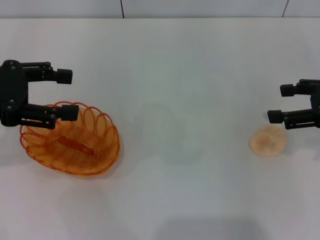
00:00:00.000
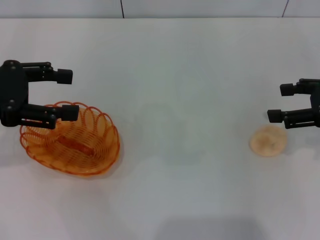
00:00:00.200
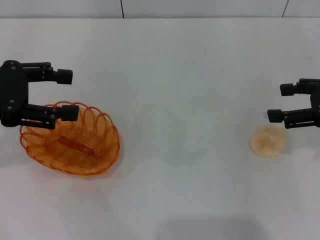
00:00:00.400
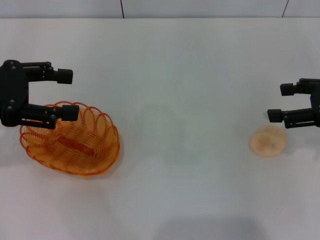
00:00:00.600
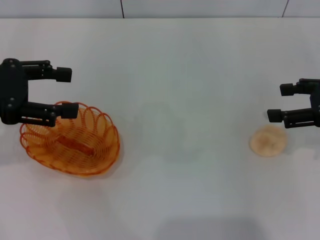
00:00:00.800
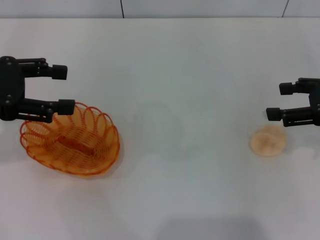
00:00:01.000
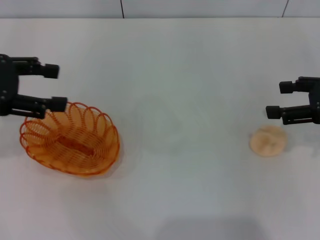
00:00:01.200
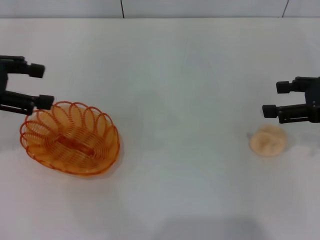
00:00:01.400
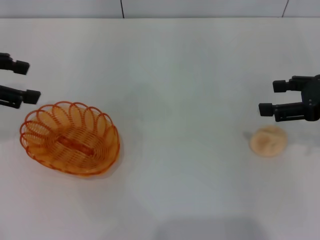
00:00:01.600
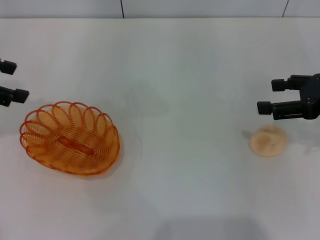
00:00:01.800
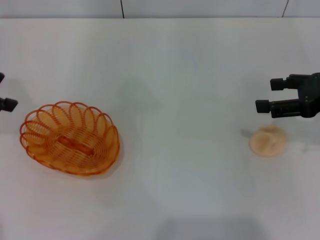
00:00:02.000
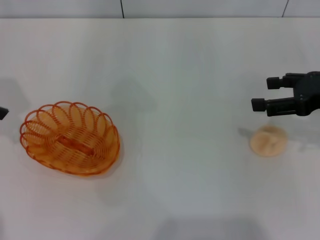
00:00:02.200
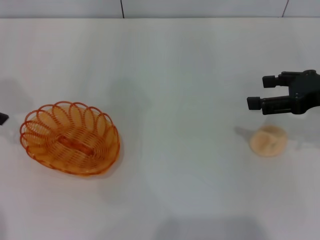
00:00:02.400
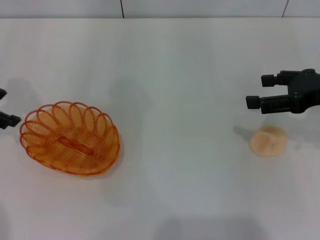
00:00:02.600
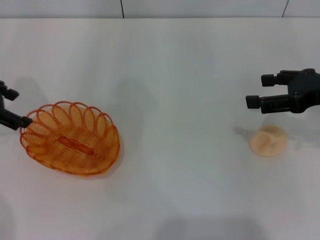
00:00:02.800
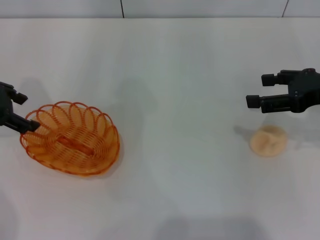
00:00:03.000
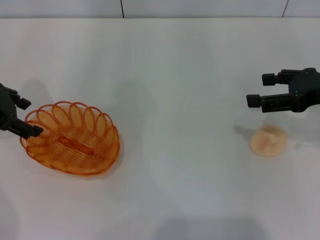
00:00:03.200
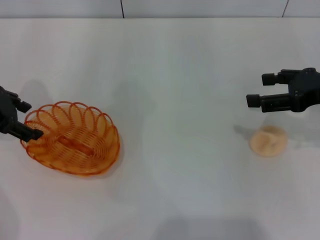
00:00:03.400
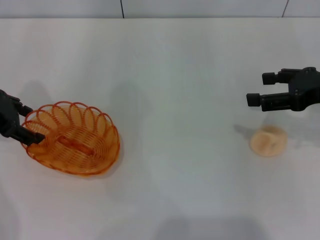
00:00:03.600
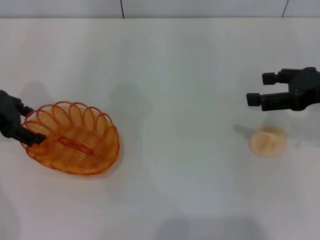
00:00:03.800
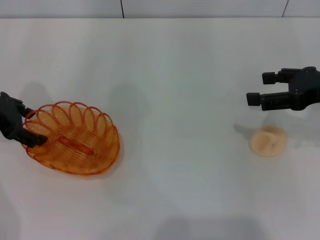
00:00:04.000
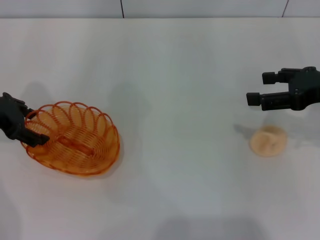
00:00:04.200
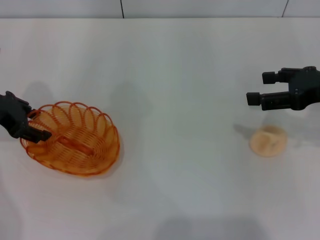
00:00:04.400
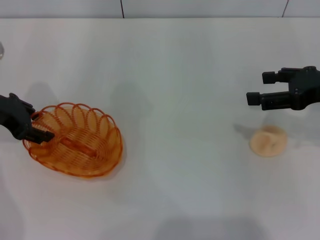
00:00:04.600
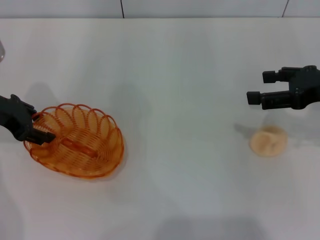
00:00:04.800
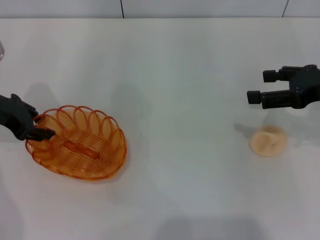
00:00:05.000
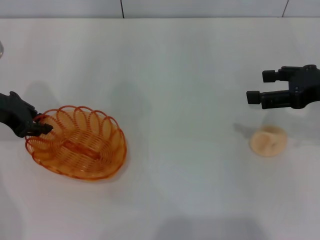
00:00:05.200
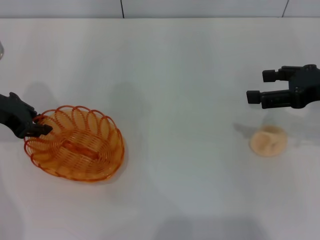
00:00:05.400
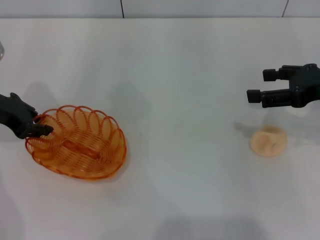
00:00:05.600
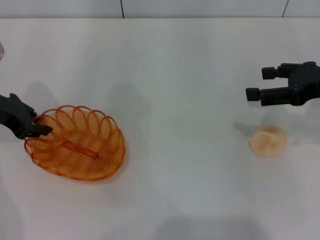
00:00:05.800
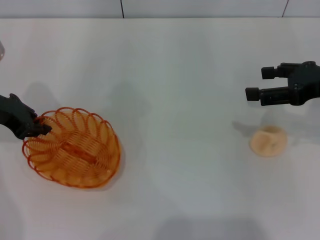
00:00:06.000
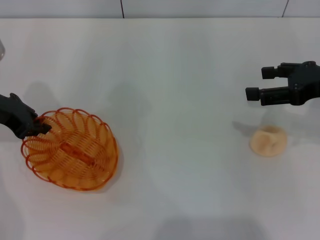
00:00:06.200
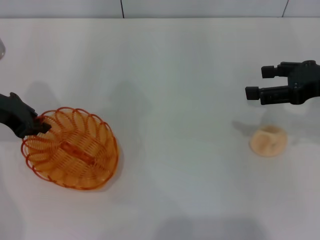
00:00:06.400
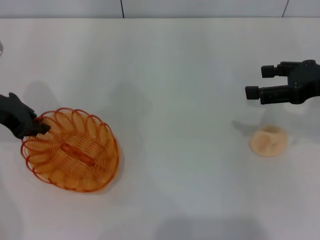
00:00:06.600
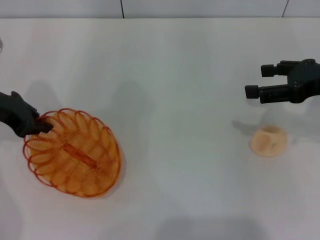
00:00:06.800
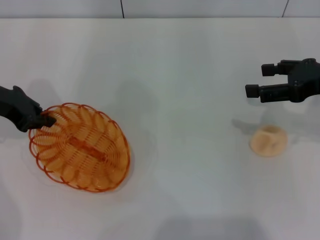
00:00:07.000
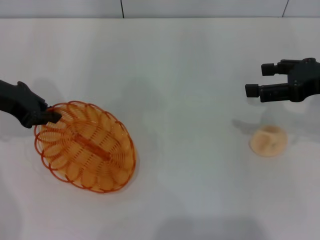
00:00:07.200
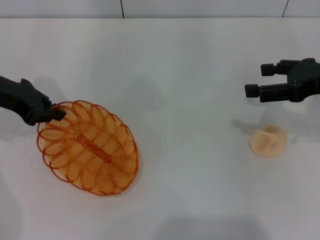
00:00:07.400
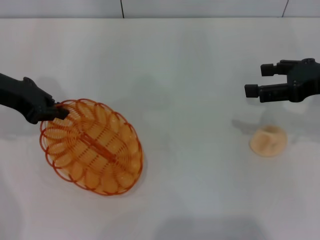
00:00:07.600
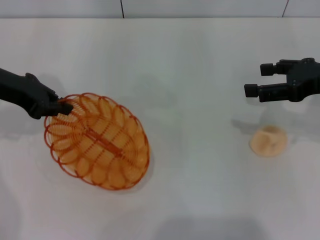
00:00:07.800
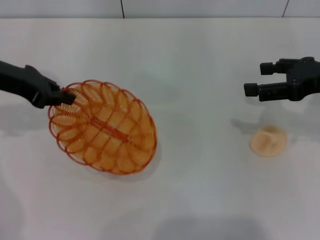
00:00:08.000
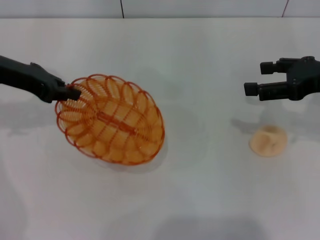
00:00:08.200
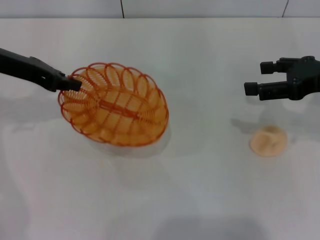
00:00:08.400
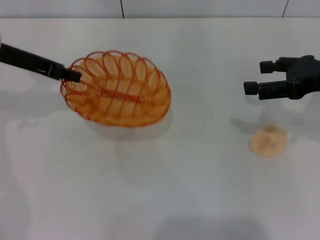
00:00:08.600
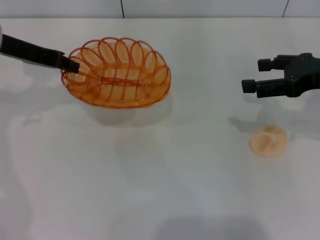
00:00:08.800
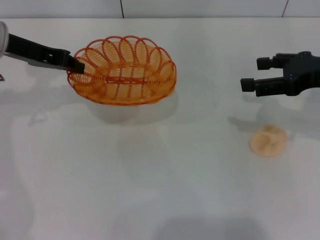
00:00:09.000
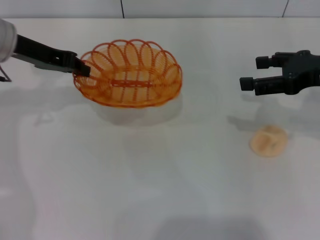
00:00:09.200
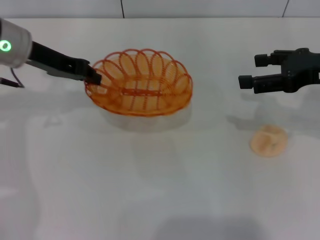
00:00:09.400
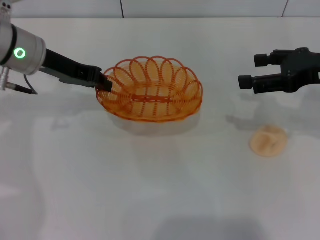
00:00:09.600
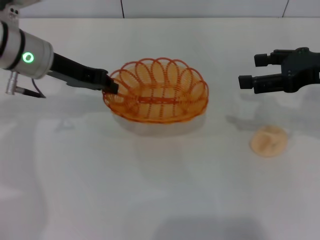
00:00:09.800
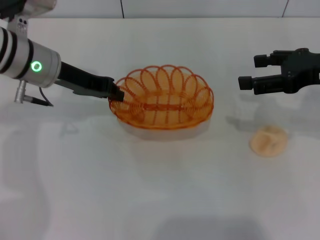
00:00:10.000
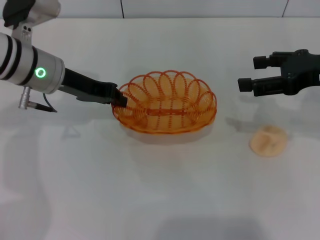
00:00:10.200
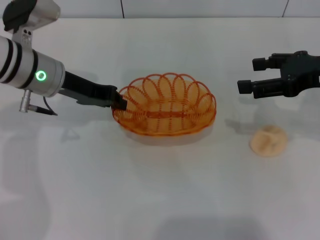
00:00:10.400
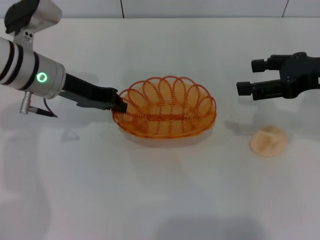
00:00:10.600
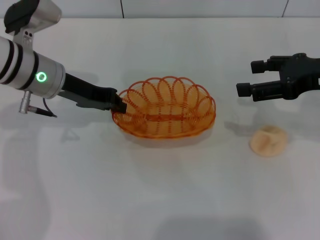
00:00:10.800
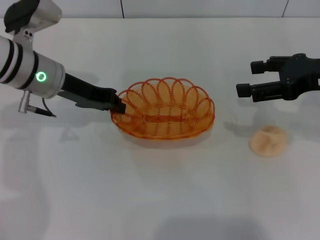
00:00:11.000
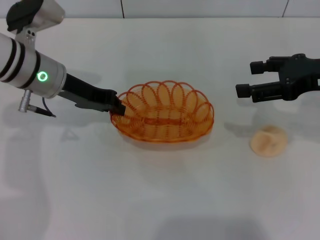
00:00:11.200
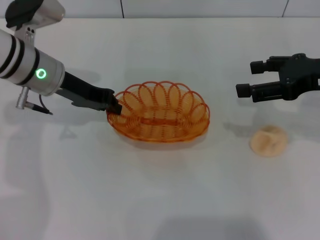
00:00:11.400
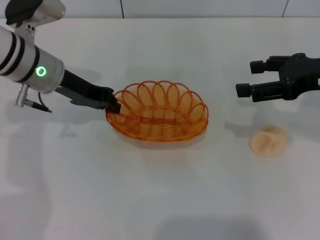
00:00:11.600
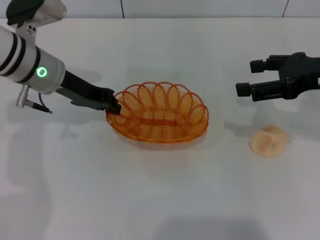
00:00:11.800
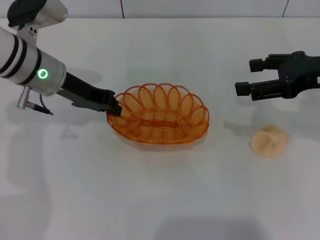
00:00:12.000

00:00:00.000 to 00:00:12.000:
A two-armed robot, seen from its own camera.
Step, 00:00:00.000 to 00:00:07.400: Pick up the basket with the left gripper.
00:00:00.000 to 00:00:01.600: The left gripper shifts by about 5 cm.
00:00:01.600 to 00:00:03.000: The left gripper travels downward by about 5 cm.
00:00:03.000 to 00:00:04.400: The grippers make only small movements.
00:00:04.400 to 00:00:06.000: The left gripper closes its fingers.
00:00:06.000 to 00:00:07.600: The grippers stay close to where they were, moving slightly.
00:00:09.000 to 00:00:10.400: The left gripper heads to the right and downward, covering about 10 cm.
00:00:10.400 to 00:00:12.000: The grippers stay close to where they were, moving slightly.

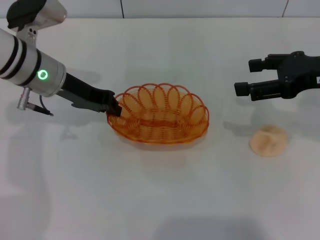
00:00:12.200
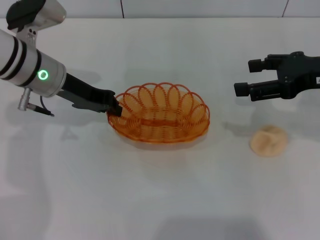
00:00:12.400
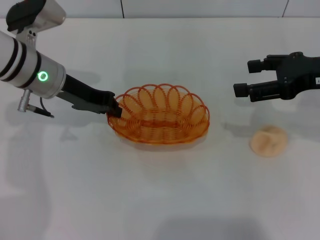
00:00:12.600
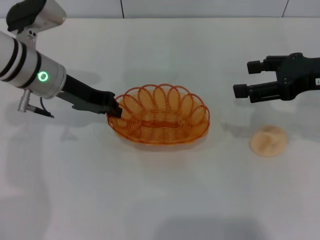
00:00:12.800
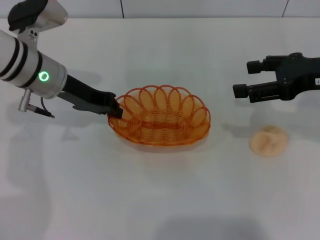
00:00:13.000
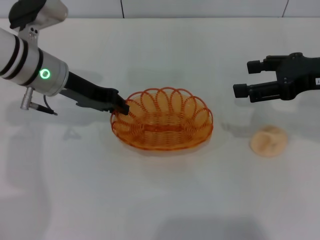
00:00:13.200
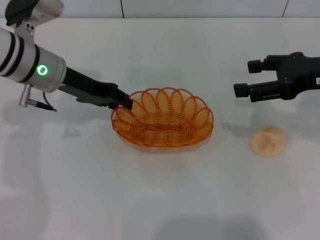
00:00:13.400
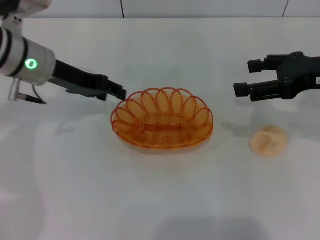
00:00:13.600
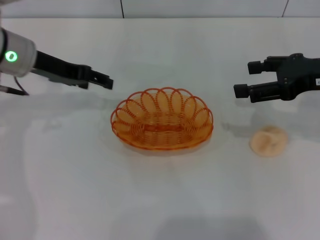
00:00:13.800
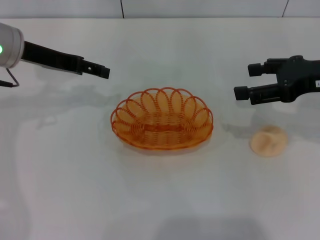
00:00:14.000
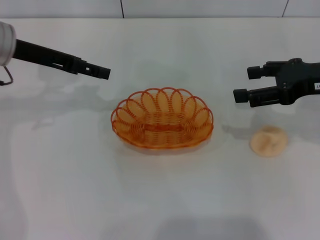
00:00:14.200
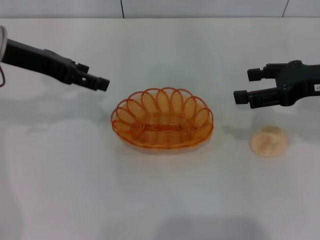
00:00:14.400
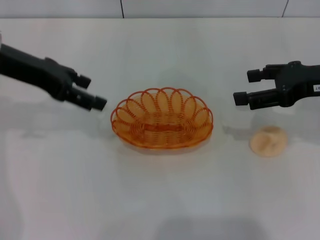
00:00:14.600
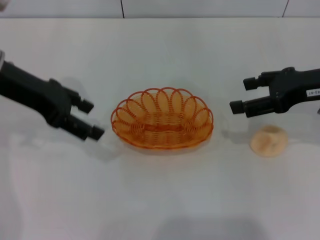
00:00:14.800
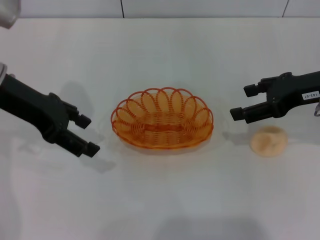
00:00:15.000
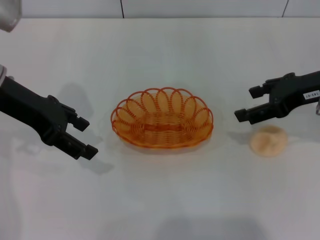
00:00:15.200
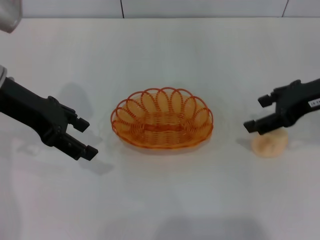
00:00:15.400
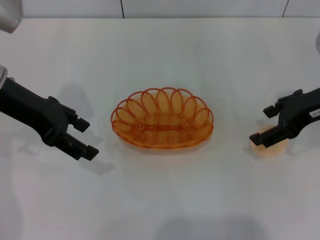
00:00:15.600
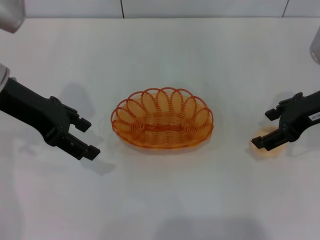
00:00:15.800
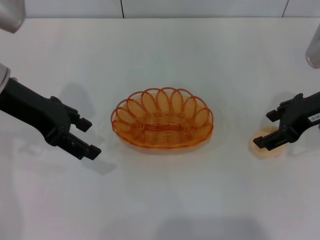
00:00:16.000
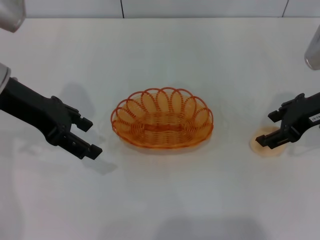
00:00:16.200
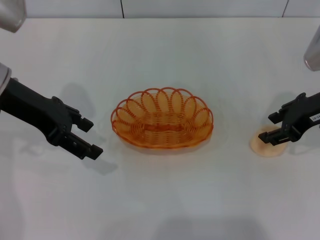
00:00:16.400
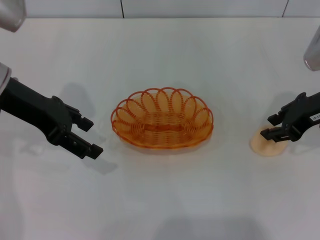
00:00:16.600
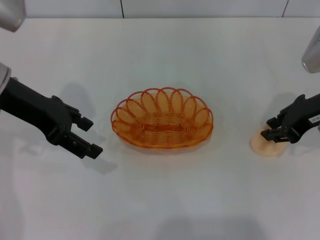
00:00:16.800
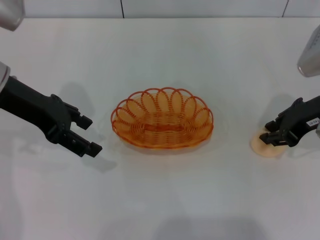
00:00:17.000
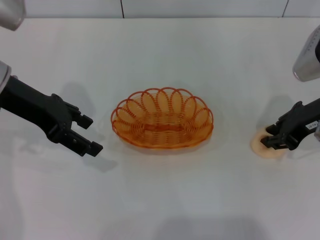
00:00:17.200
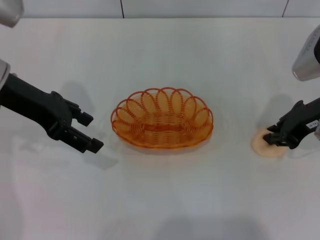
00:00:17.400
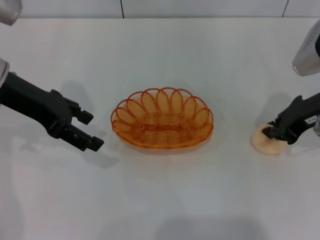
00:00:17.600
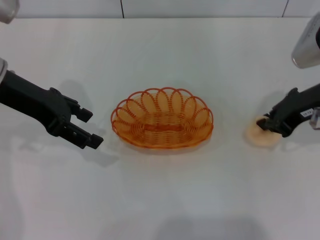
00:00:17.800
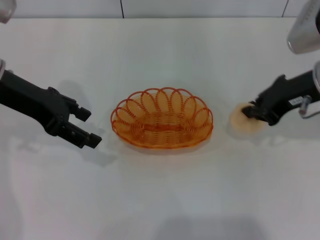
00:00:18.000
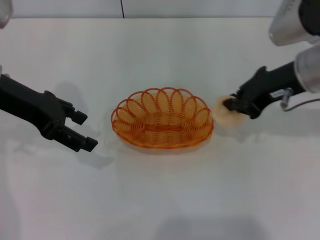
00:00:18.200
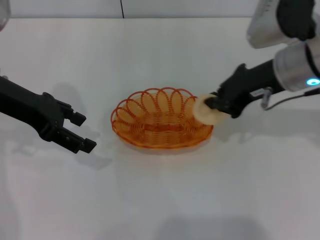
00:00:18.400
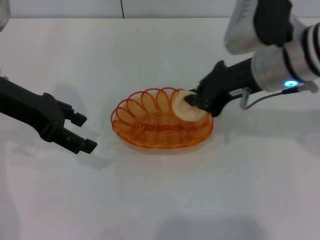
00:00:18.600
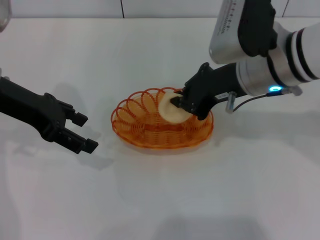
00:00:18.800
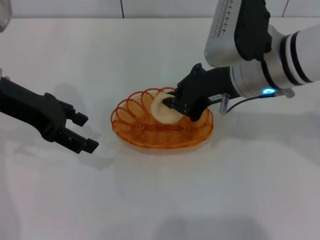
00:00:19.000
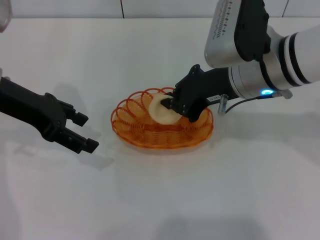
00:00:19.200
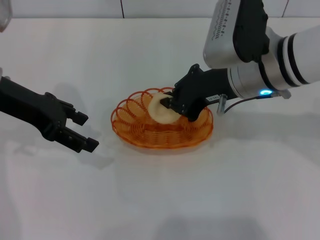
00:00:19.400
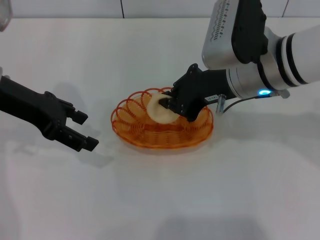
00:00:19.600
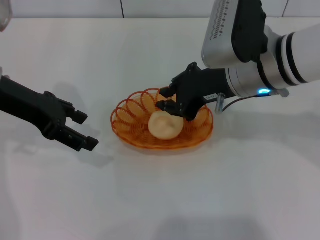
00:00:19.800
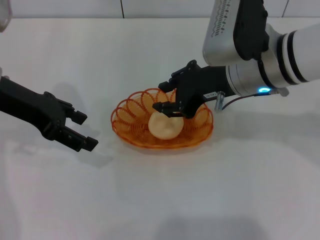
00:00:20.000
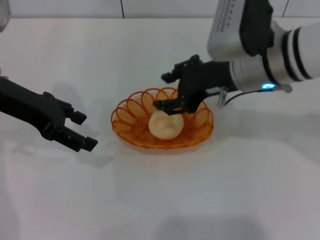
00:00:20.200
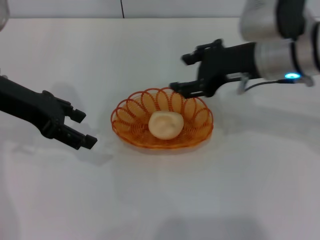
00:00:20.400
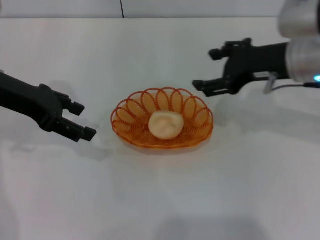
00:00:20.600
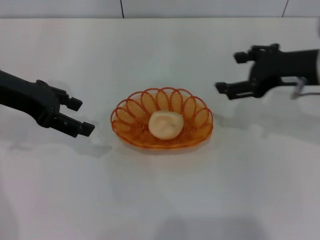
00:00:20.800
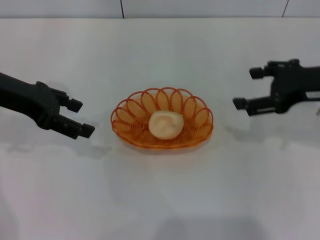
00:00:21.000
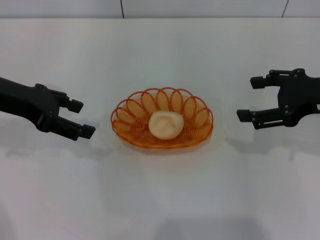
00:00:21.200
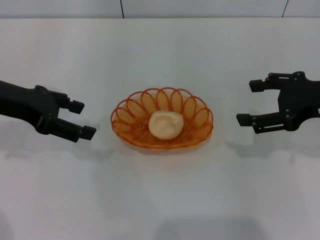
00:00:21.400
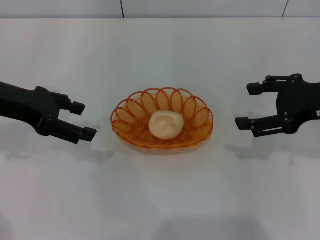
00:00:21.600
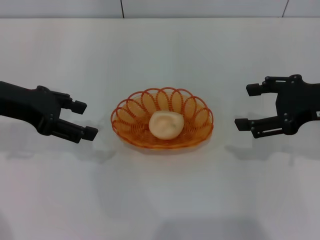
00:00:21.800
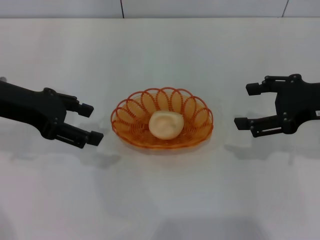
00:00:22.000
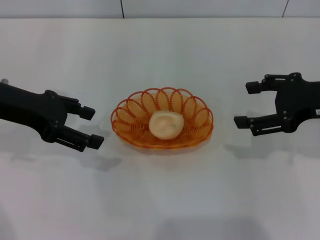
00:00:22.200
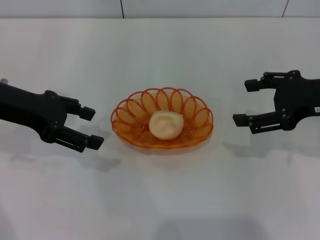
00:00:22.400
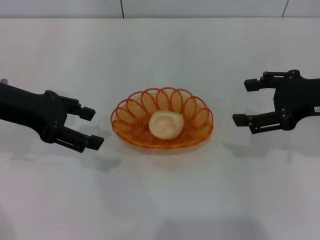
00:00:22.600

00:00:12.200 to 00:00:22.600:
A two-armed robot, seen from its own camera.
Step, 00:00:13.800 to 00:00:17.800: Pick up the egg yolk pastry with the right gripper.
Step, 00:00:18.000 to 00:00:20.200: Place the egg yolk pastry into the basket with the right gripper.
00:00:12.200 to 00:00:13.600: The left gripper opens its fingers.
00:00:13.600 to 00:00:15.200: The left gripper is displaced backward by approximately 5 cm, and opens.
00:00:15.200 to 00:00:16.600: The right gripper closes up.
00:00:16.600 to 00:00:18.200: The right gripper shifts about 5 cm to the left, and closes.
00:00:18.200 to 00:00:19.600: The right gripper shifts approximately 10 cm to the left.
00:00:19.600 to 00:00:21.200: The right gripper heads to the right, covering some 15 cm, and opens its fingers.
00:00:21.200 to 00:00:22.600: The grippers make only small movements.
